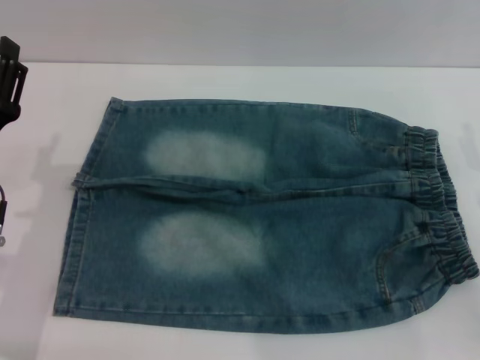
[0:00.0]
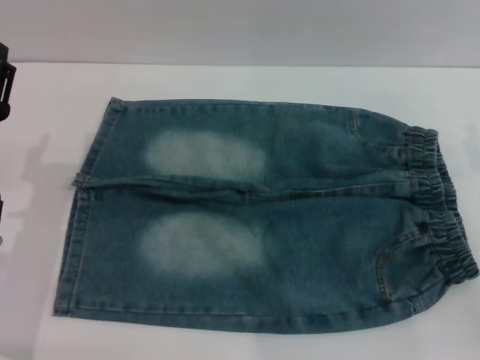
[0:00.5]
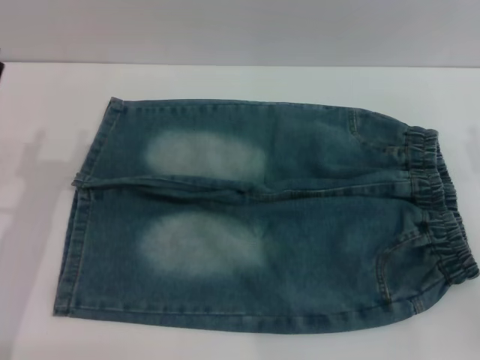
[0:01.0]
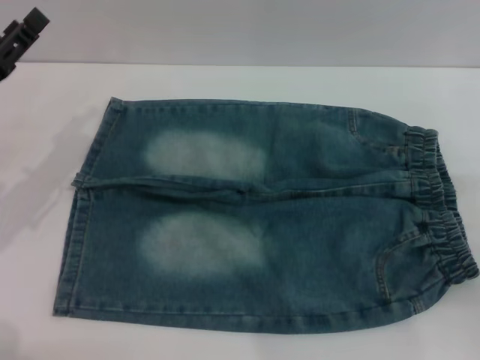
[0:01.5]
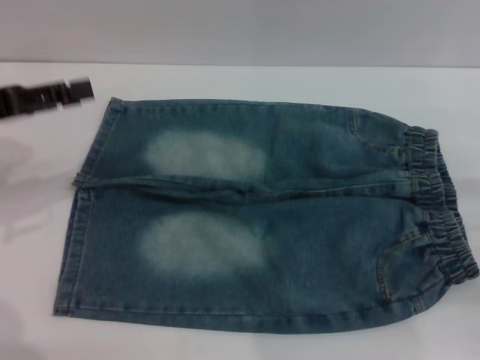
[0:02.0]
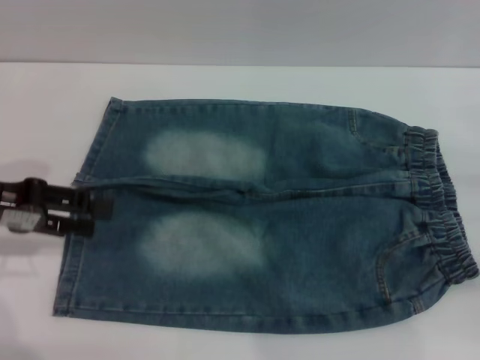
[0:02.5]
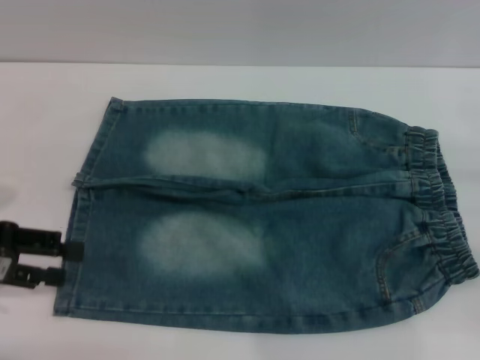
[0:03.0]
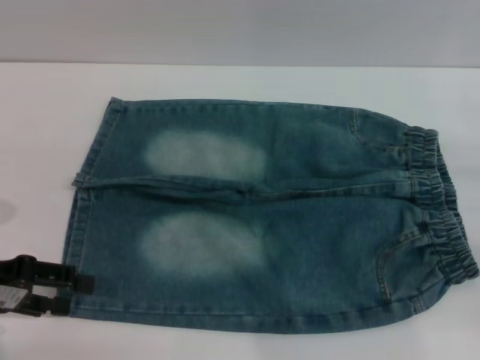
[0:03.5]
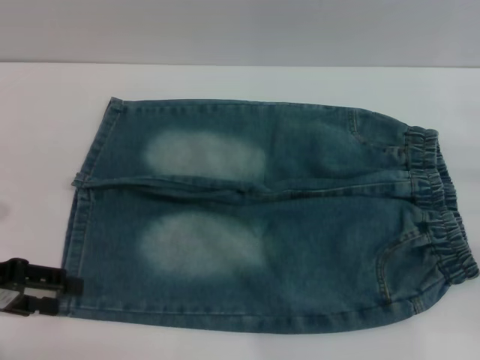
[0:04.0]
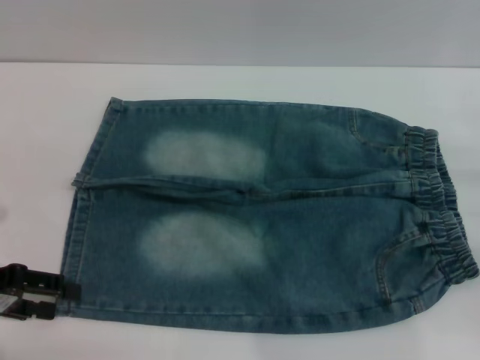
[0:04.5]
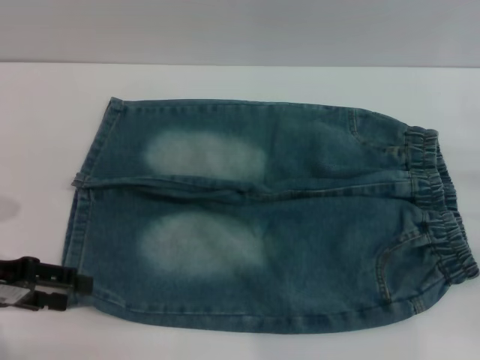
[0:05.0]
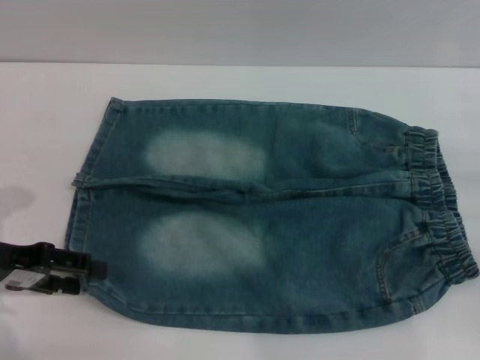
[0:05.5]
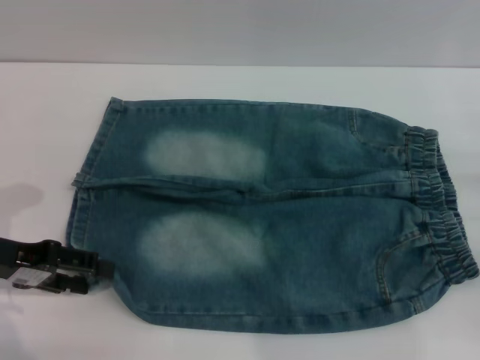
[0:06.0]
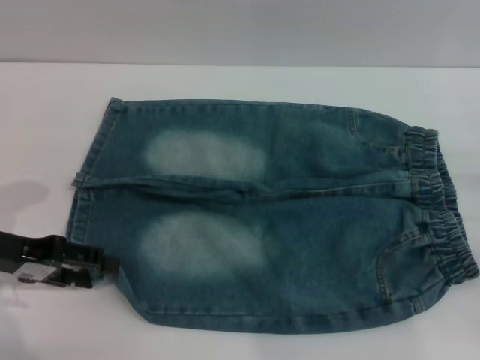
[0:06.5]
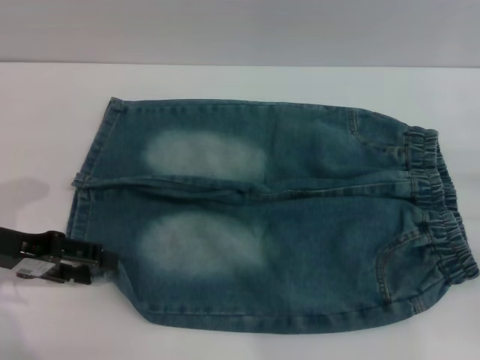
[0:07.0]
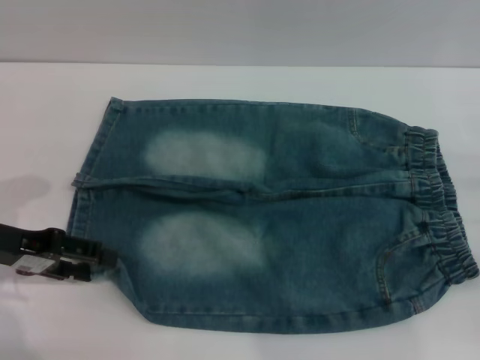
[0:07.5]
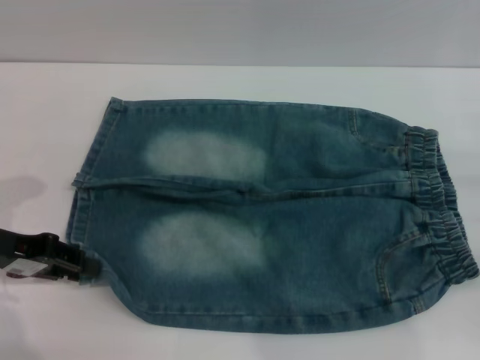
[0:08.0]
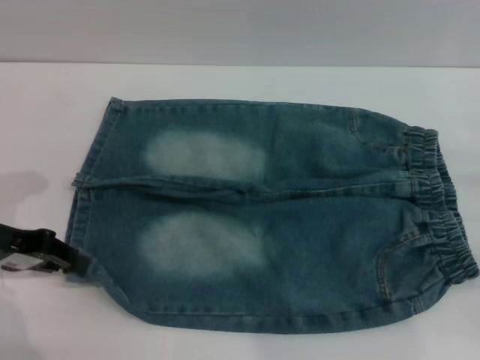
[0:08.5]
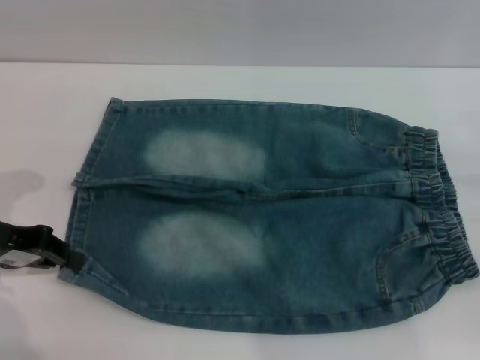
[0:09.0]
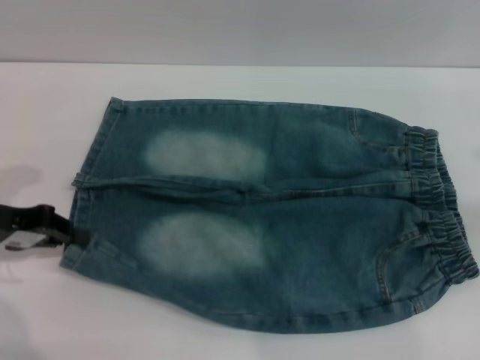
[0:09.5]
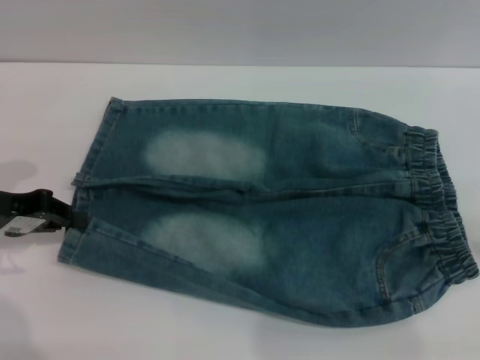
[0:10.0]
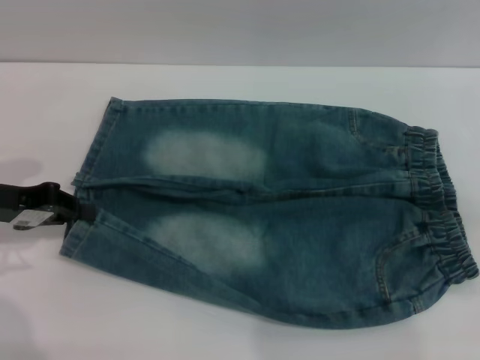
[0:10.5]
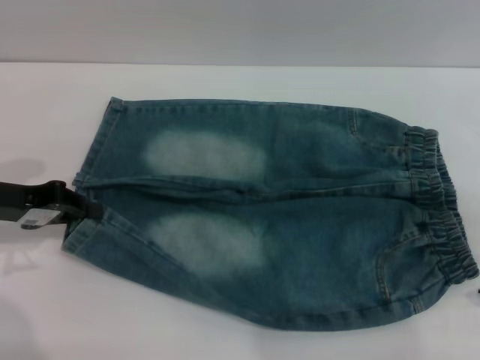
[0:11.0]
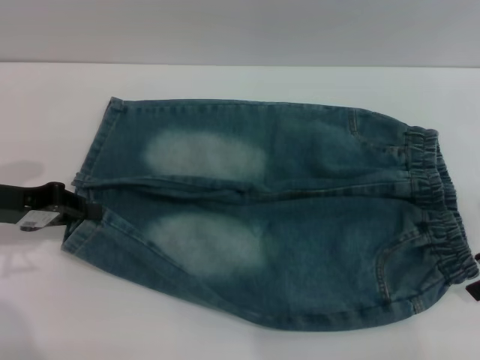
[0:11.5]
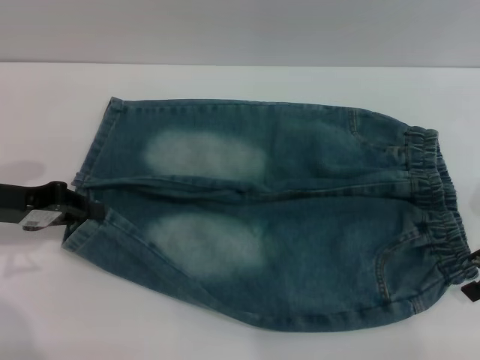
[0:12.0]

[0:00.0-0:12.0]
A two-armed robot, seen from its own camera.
0:00.0 to 0:02.0: The left gripper goes roughly 15 cm upward, to the left and forward.
0:02.0 to 0:04.0: The left gripper moves downward and backward, approximately 10 cm.
0:04.0 to 0:06.0: There are only small adjustments of the grippers.
0:06.0 to 0:08.0: Both grippers stay about where they are.
0:08.0 to 0:10.0: The left gripper closes, while the right gripper heads upward, covering approximately 15 cm.
0:10.0 to 0:12.0: The right gripper is displaced to the left and downward by approximately 10 cm.

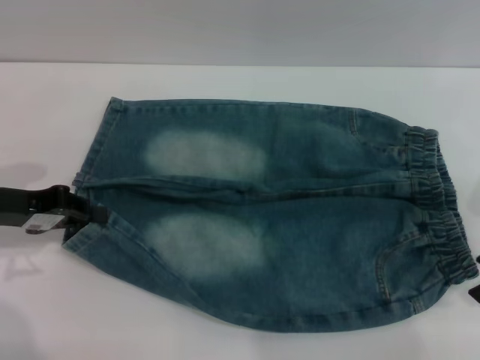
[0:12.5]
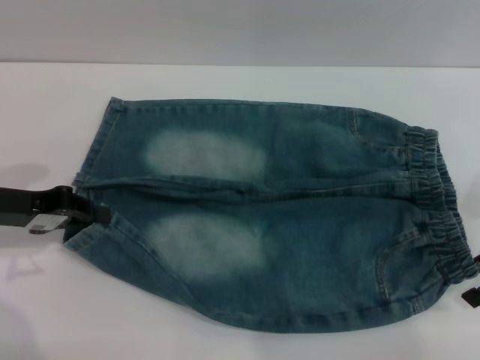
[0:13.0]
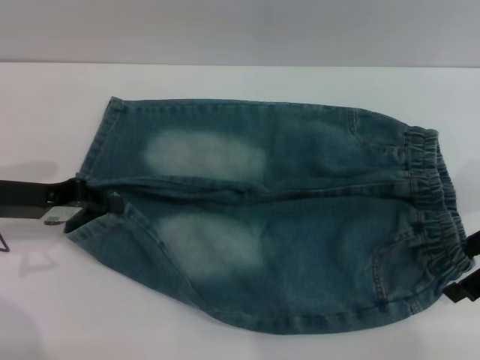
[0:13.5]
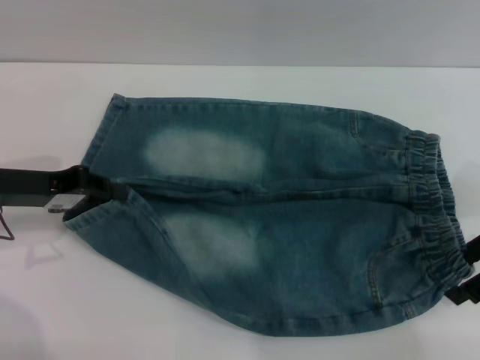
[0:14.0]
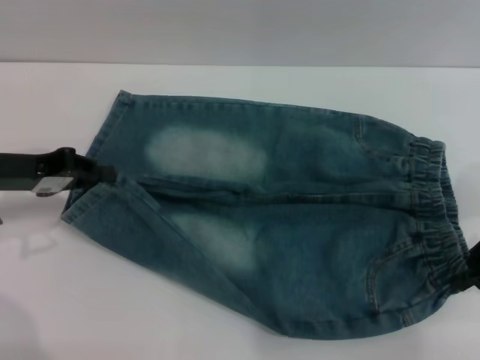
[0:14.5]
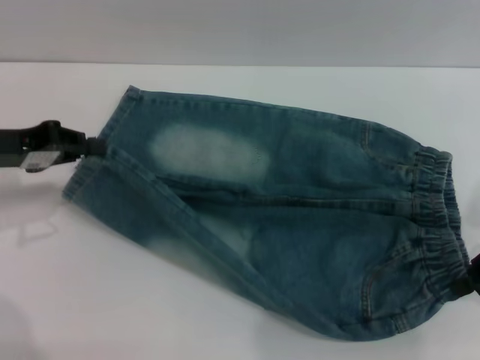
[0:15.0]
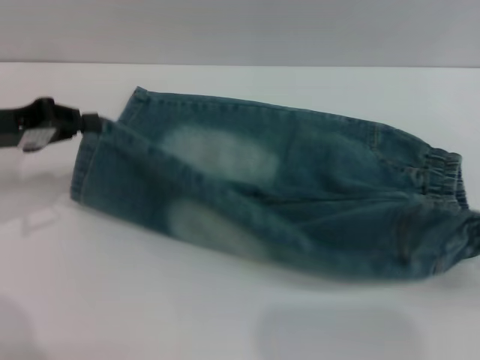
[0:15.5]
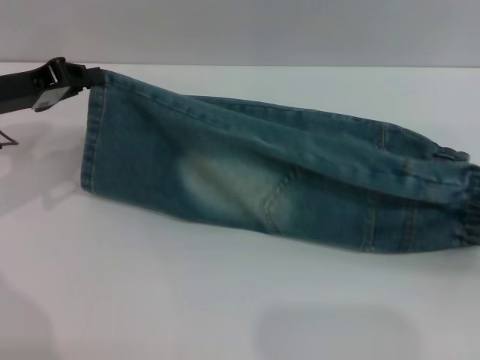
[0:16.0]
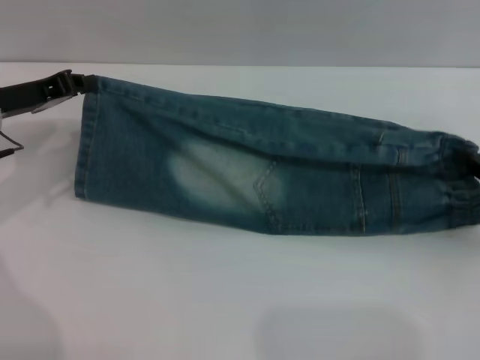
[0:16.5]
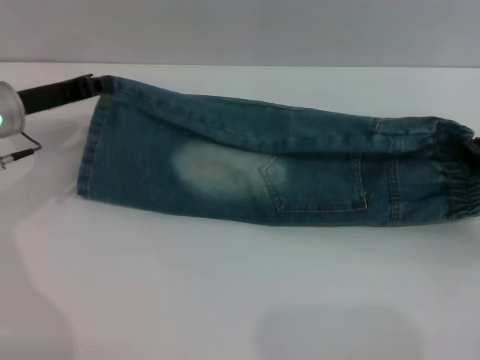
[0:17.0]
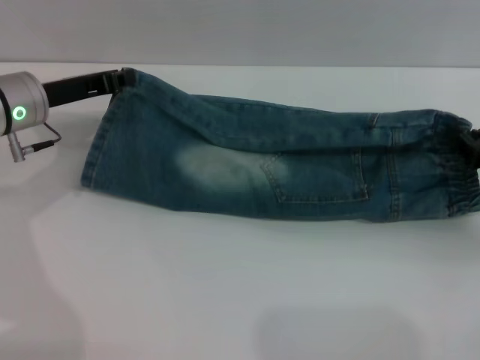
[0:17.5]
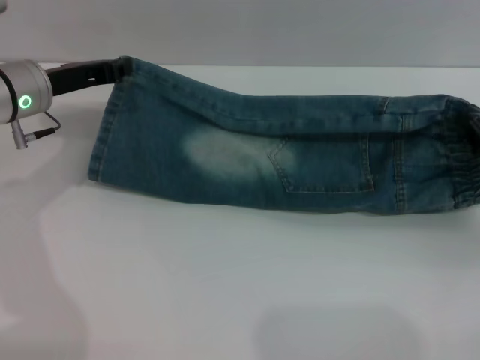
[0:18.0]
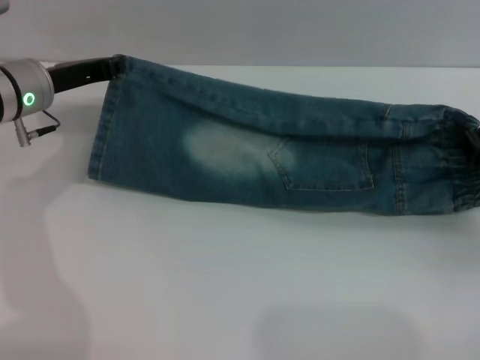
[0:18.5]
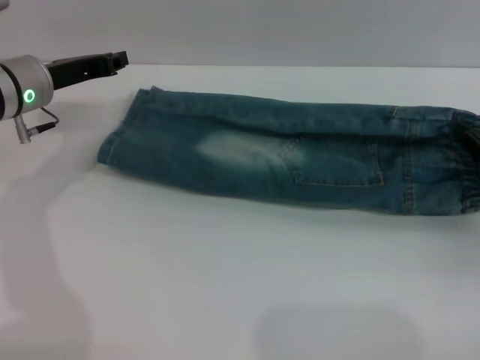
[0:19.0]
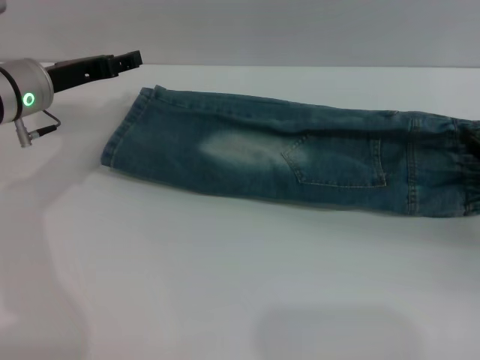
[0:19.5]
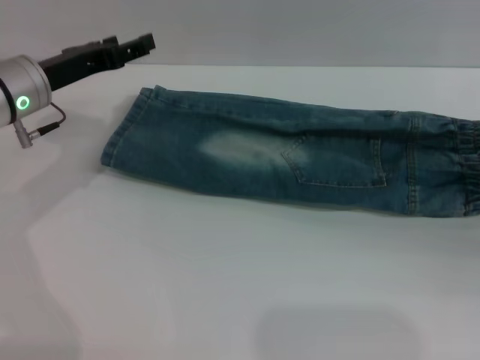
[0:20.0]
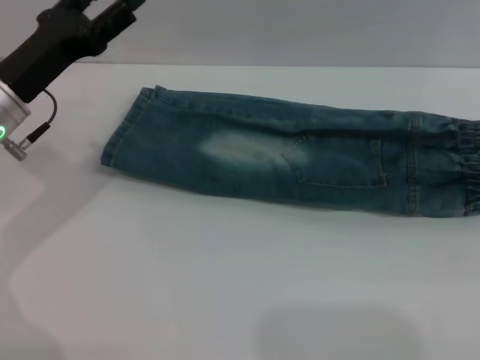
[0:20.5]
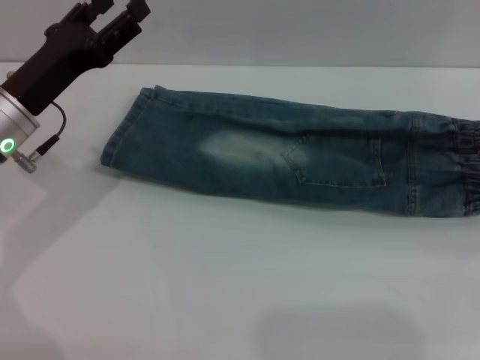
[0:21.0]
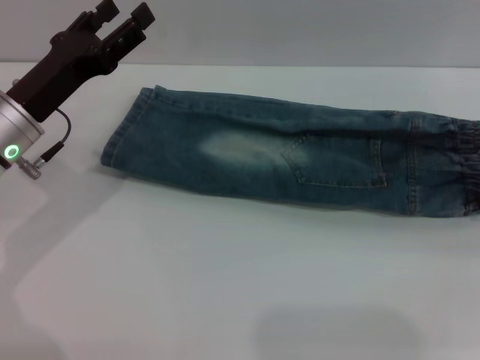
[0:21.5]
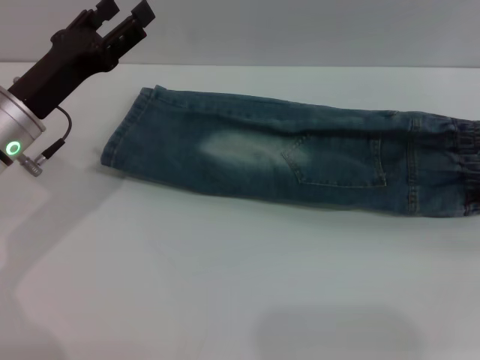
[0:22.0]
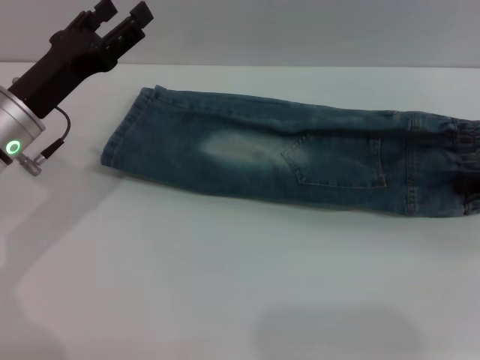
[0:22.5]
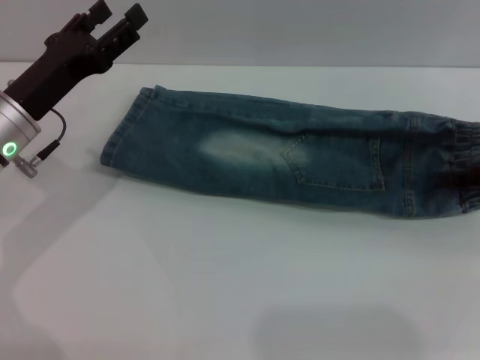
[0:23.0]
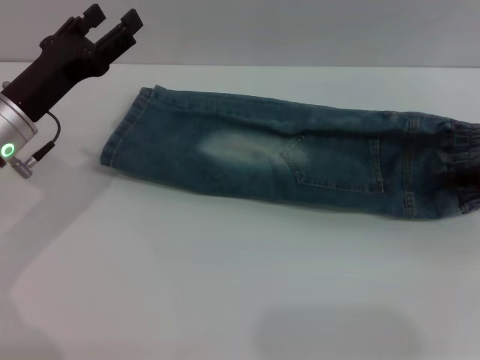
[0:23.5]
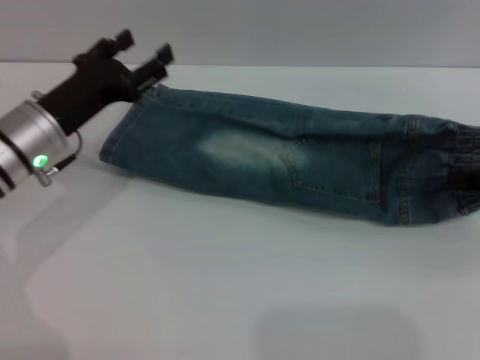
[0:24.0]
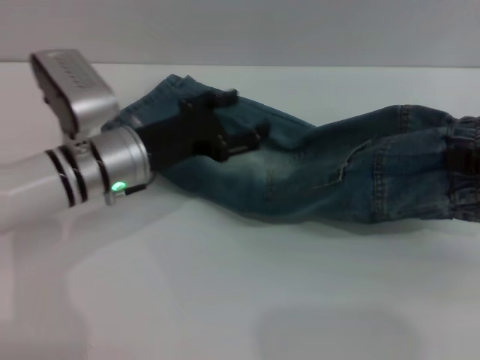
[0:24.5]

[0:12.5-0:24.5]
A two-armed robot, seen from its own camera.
Step, 0:12.5 to 0:19.5: Fold the bottom of the pants upward with both grippers.
0:12.5 to 0:14.5: The right gripper closes up.
0:14.5 to 0:16.5: The right gripper moves downward and to the right, roughly 10 cm, and closes its fingers; the left gripper travels forward by approximately 5 cm.
0:16.5 to 0:18.5: The left gripper moves some 5 cm.
0:18.5 to 0:20.5: The left gripper travels backward by about 5 cm, and opens its fingers. The right gripper shifts approximately 15 cm upward and to the right, and opens its fingers.
0:22.5 to 0:24.5: The left gripper is displaced to the right by about 10 cm, while the right gripper heads backward, covering approximately 5 cm, and closes its fingers.

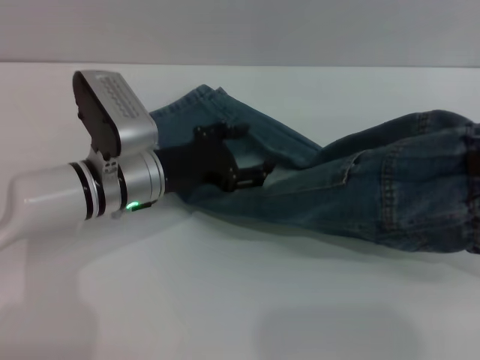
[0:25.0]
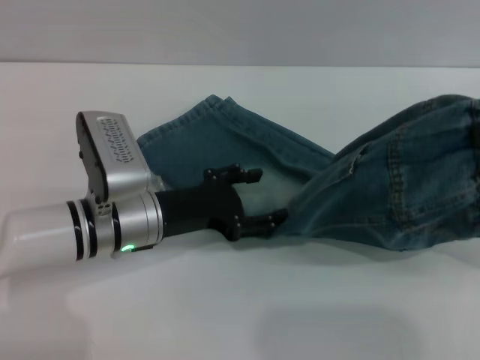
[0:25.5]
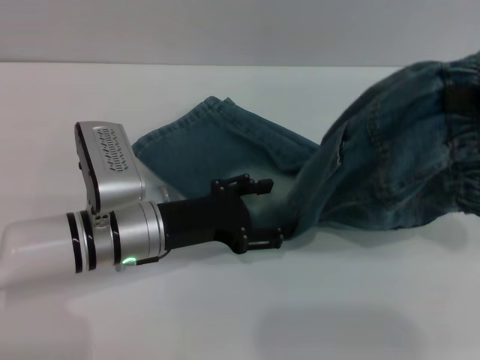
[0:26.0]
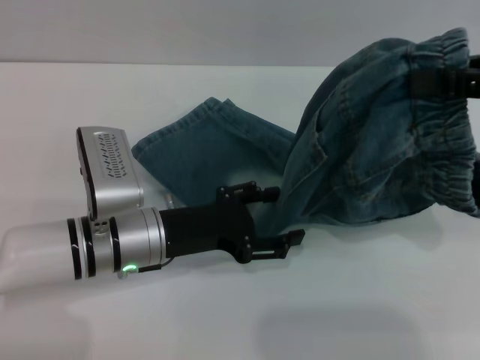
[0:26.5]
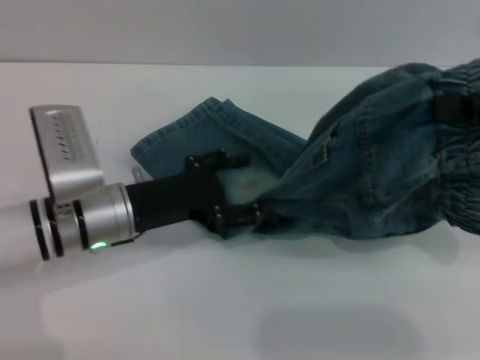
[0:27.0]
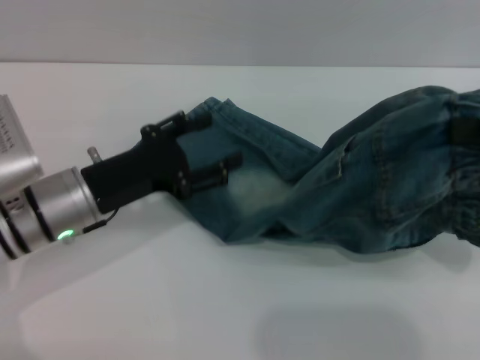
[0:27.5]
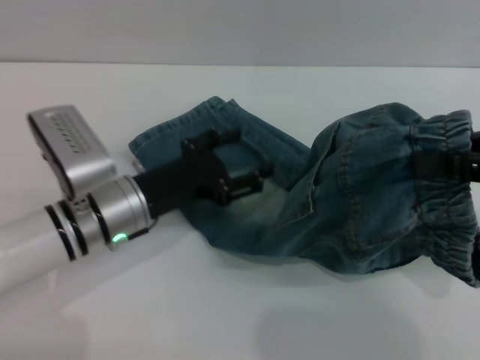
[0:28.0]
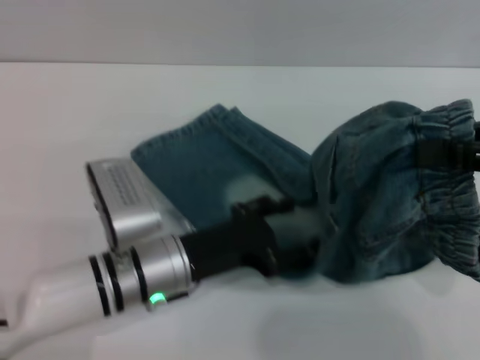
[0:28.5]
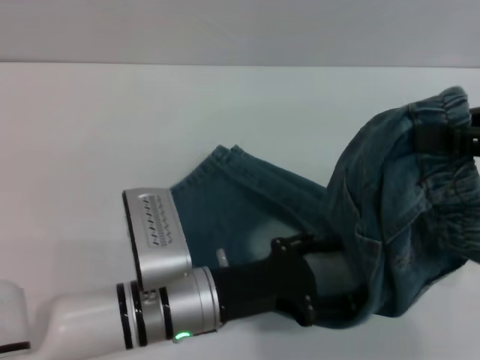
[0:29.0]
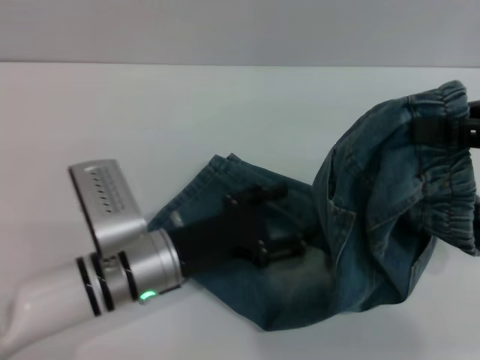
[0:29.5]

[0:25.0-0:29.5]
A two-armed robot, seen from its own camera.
0:25.0 to 0:27.0: The left gripper moves about 5 cm.
